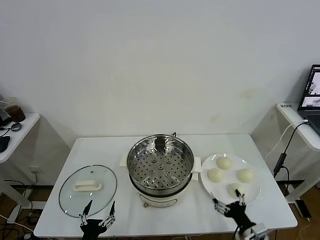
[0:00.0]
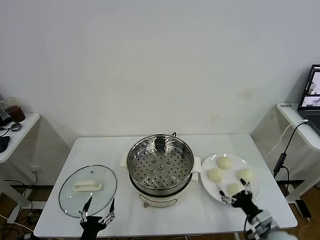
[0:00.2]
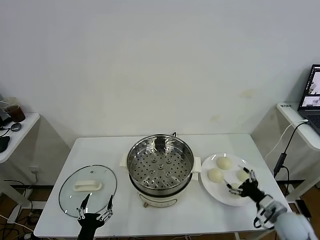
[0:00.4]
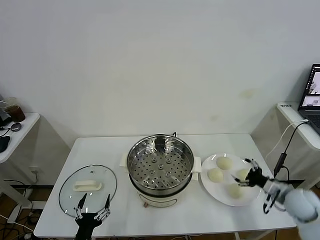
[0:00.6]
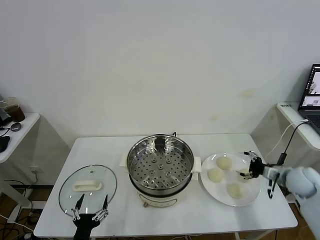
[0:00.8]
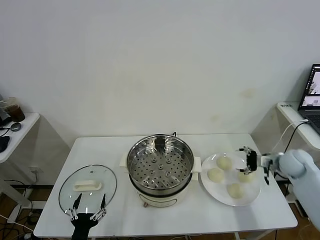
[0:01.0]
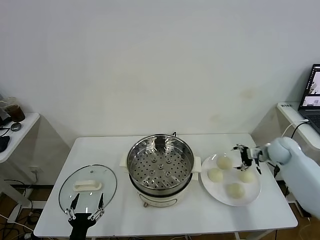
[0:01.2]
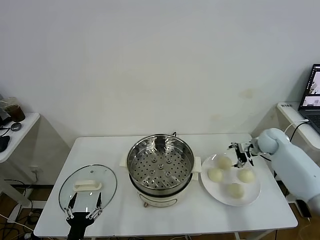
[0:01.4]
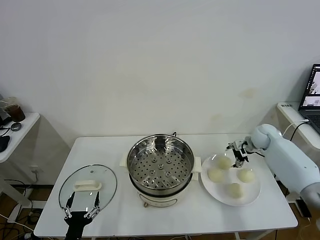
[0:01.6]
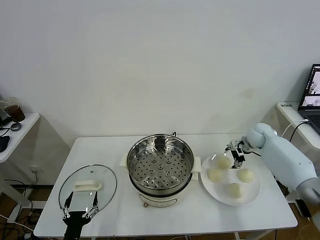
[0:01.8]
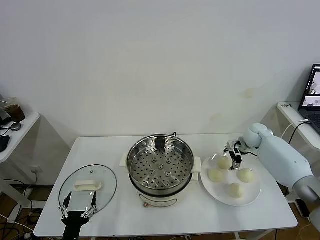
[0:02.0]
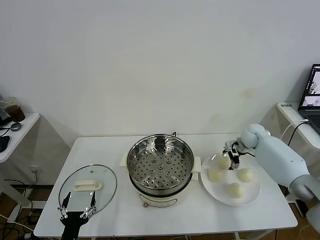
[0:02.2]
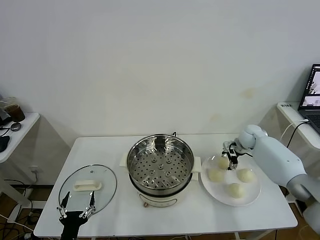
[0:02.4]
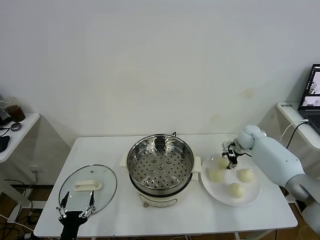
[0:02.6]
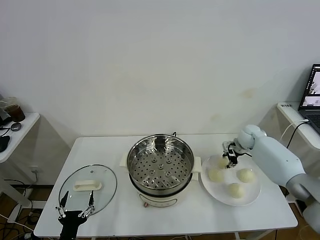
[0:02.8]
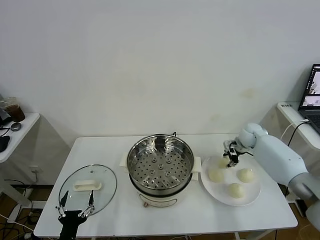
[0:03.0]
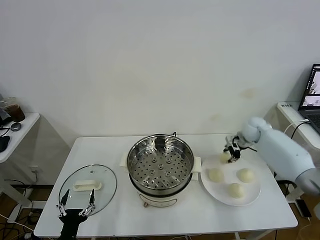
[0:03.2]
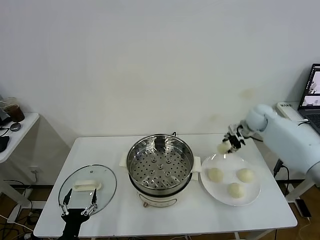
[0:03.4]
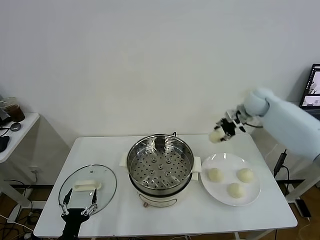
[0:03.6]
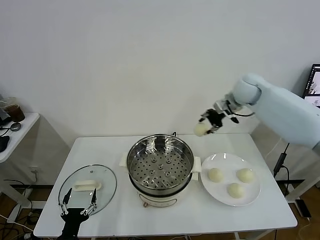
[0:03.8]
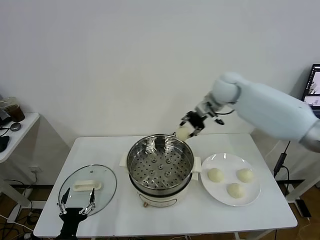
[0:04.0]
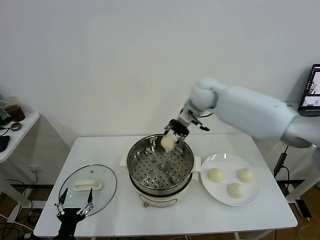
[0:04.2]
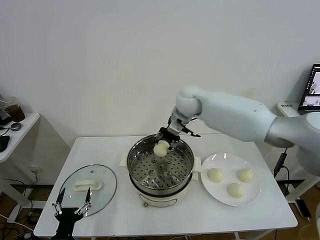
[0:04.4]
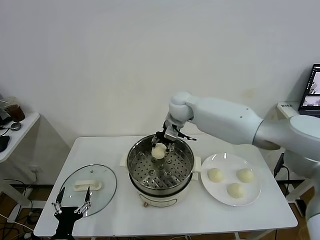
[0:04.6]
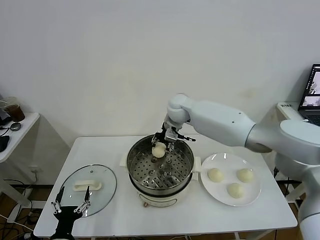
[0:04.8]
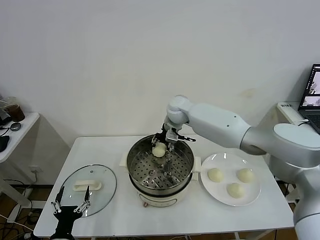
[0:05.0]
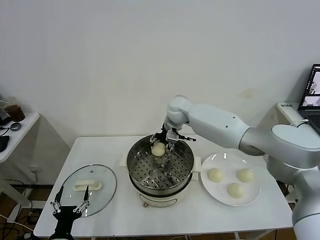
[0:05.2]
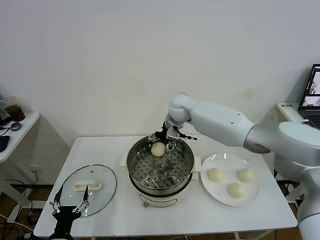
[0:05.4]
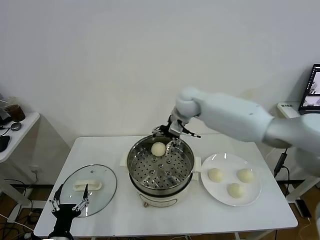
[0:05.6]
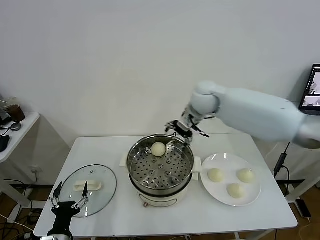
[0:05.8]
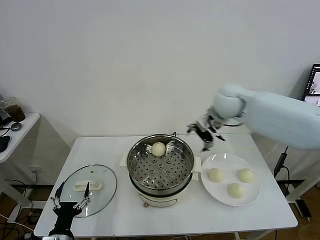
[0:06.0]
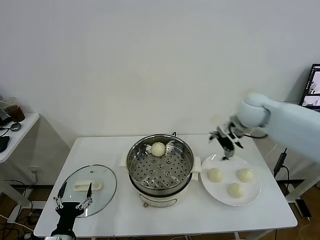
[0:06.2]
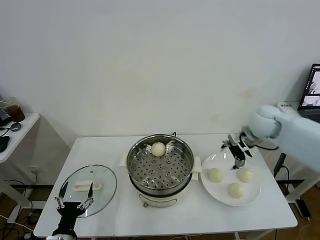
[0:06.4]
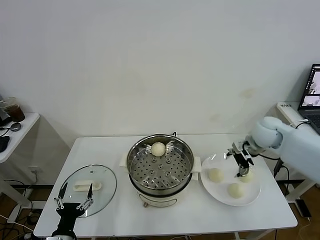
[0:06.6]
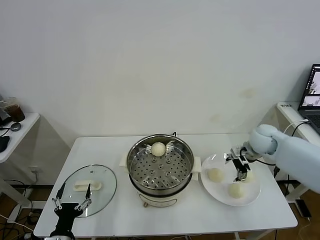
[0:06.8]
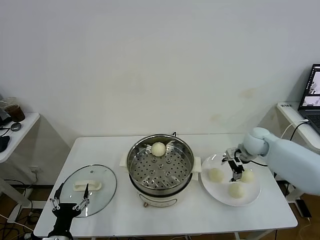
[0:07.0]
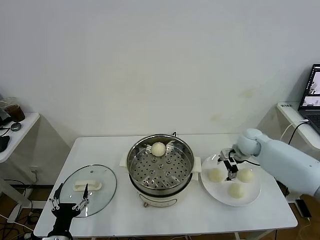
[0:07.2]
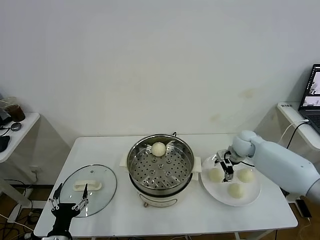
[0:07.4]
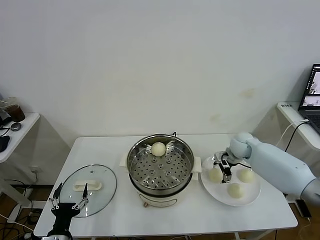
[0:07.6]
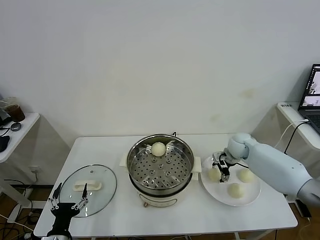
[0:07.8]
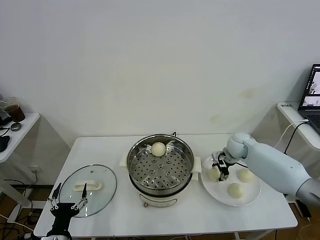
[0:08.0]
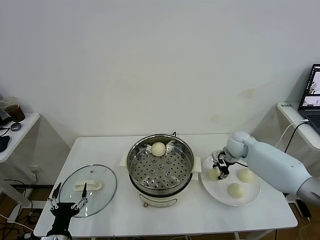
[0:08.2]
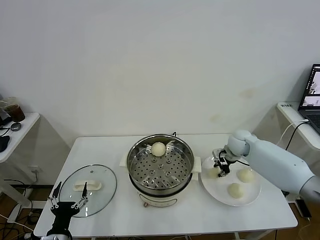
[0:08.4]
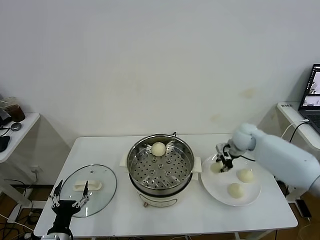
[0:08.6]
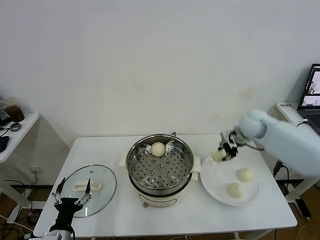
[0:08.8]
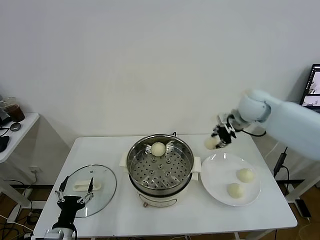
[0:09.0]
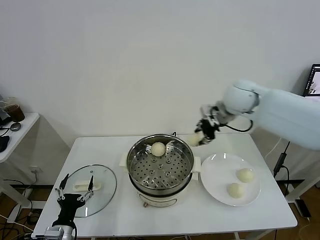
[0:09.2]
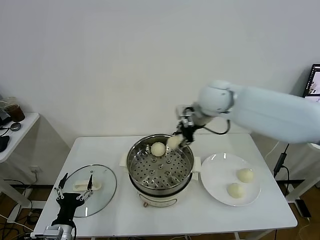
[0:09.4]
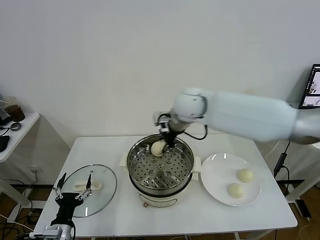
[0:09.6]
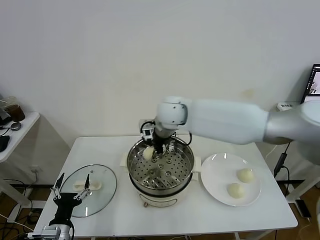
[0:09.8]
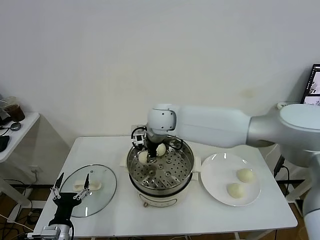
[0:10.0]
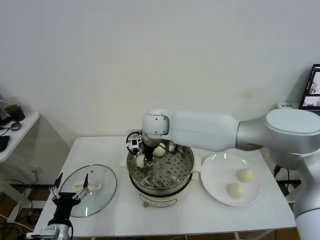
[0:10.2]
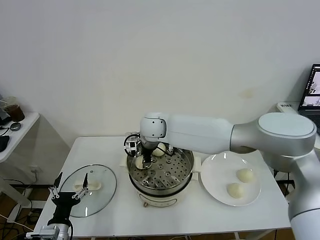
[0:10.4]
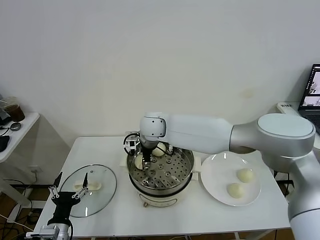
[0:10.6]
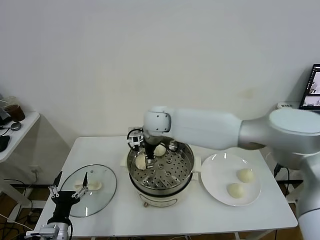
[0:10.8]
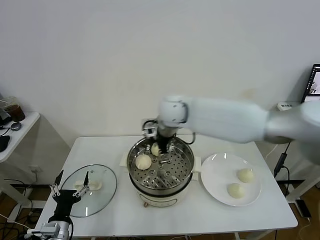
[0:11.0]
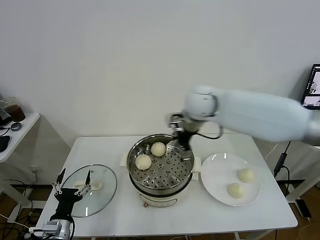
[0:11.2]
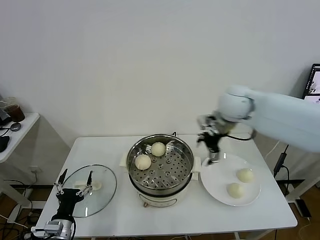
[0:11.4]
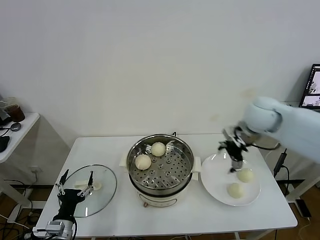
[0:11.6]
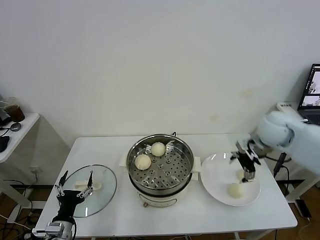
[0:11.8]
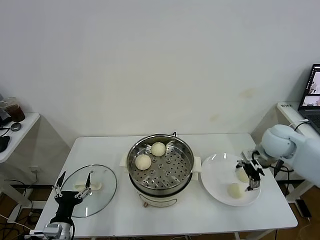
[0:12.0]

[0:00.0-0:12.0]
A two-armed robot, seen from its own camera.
Task of the whole recording: take steamed baozi put them in steamer.
Step, 0.0 to 2.8 s: Grasp the baozi in the plate with right gripper.
Step, 3.0 to 5.4 s: Place the baozi on the steamer with right gripper.
Step, 5.6 to 8.2 s: Grasp the baozi in the plate with right gripper.
Step, 8.4 to 10.6 s: Place the baozi on the steamer with right gripper.
1.6 to 3.0 s: The right gripper closes its fingers.
3.0 to 4.4 s: The right gripper moves to the left and upward, about 35 cm.
4.4 to 6.0 s: The right gripper goes about 15 cm to the right, and opens.
6.0 to 7.6 s: The right gripper travels downward and to the right by about 25 cm.
7.6 to 9.0 s: The right gripper shifts about 20 cm upward, and closes its fingers.
9.0 to 10.4 s: The right gripper is displaced to the left by some 30 cm.
10.4 to 12.0 s: The right gripper moves to the right, roughly 40 cm, and opens up.

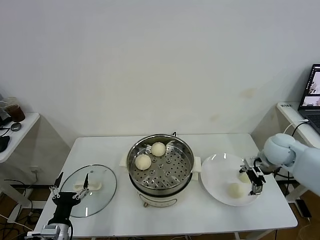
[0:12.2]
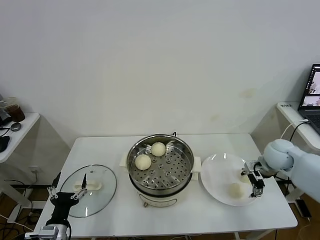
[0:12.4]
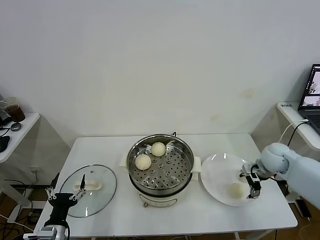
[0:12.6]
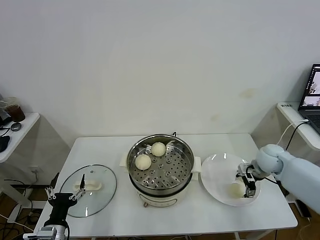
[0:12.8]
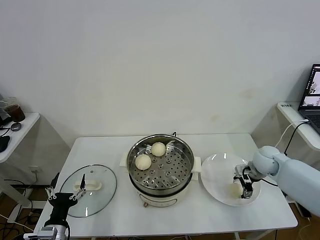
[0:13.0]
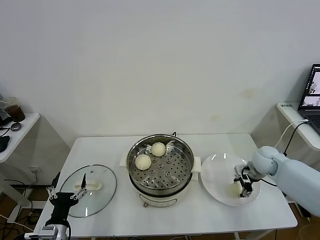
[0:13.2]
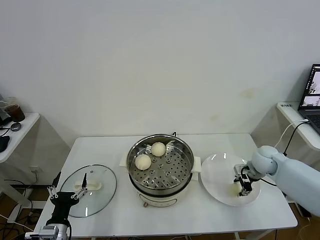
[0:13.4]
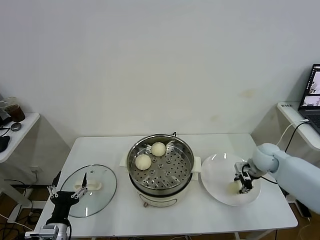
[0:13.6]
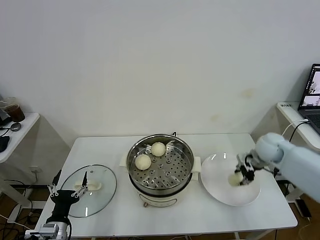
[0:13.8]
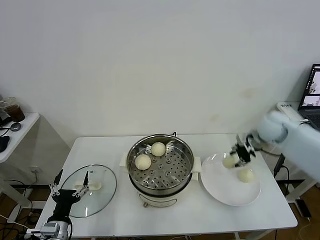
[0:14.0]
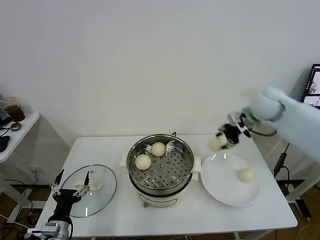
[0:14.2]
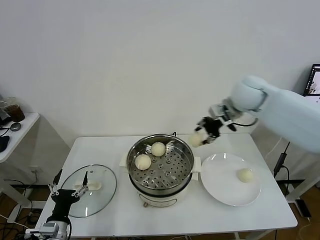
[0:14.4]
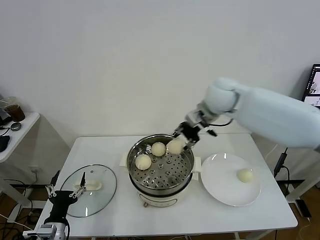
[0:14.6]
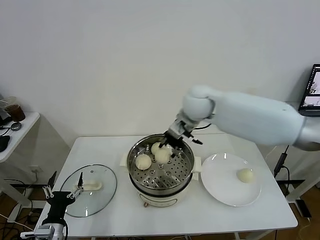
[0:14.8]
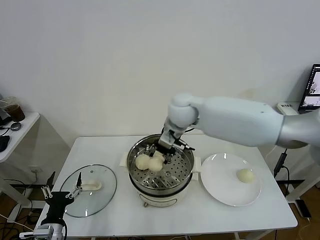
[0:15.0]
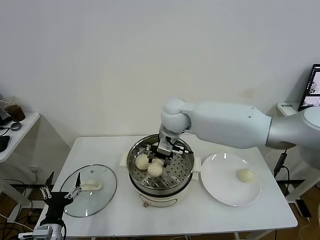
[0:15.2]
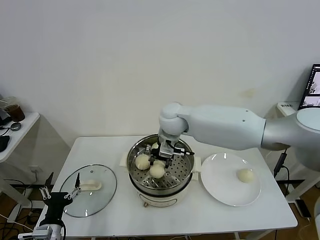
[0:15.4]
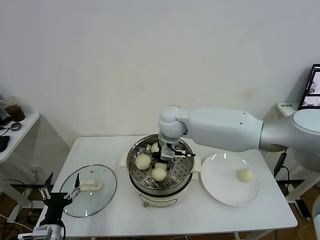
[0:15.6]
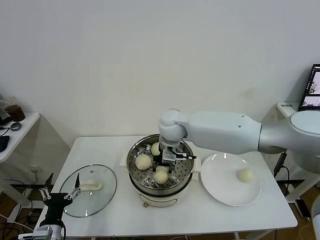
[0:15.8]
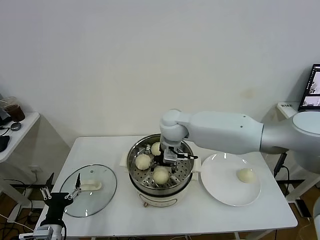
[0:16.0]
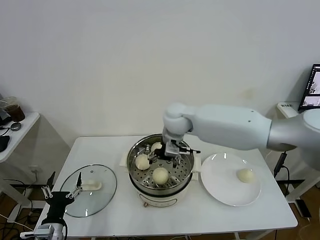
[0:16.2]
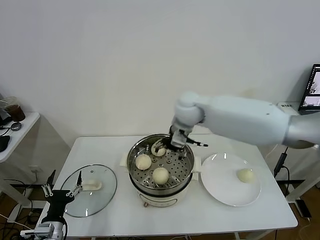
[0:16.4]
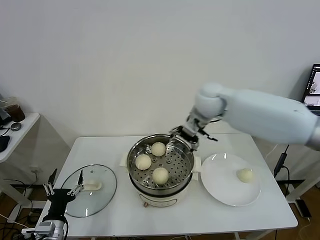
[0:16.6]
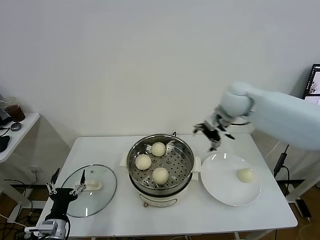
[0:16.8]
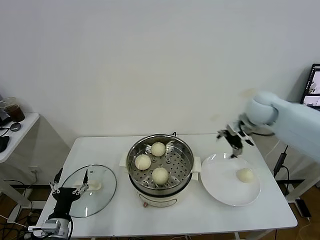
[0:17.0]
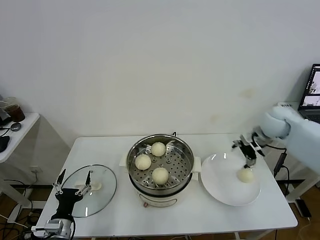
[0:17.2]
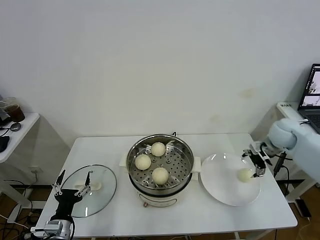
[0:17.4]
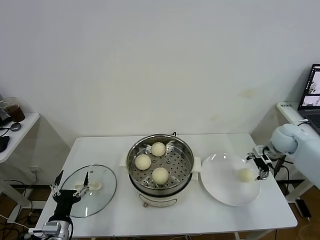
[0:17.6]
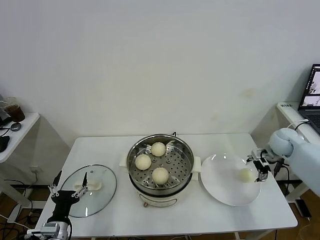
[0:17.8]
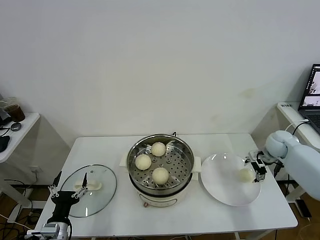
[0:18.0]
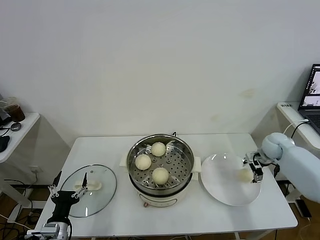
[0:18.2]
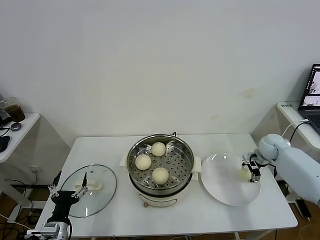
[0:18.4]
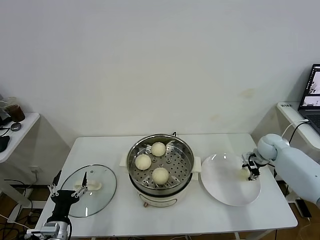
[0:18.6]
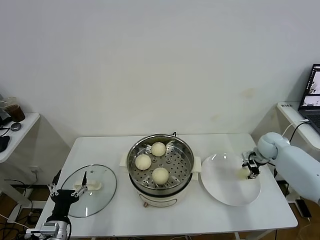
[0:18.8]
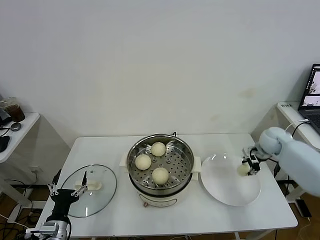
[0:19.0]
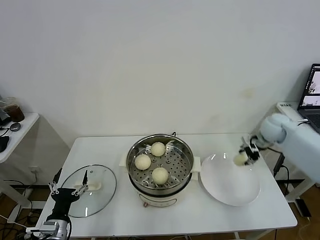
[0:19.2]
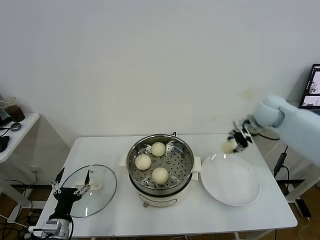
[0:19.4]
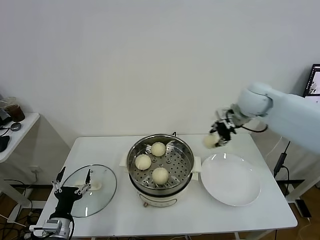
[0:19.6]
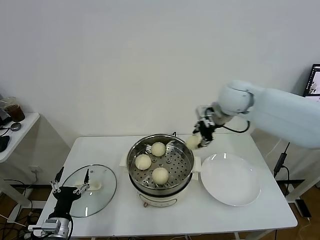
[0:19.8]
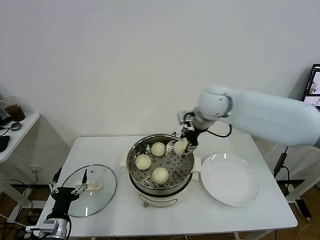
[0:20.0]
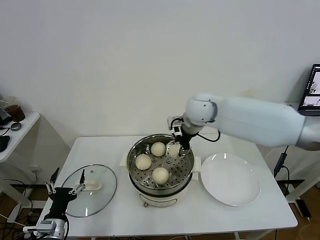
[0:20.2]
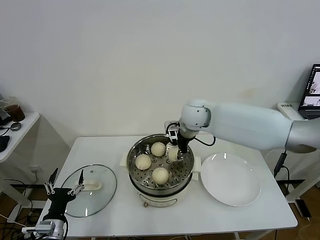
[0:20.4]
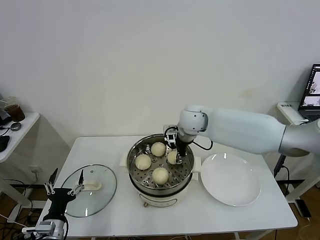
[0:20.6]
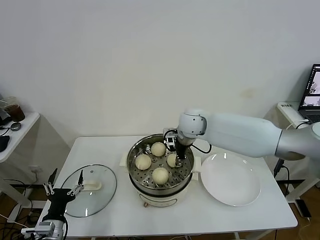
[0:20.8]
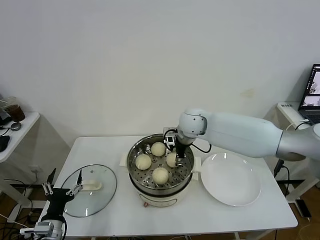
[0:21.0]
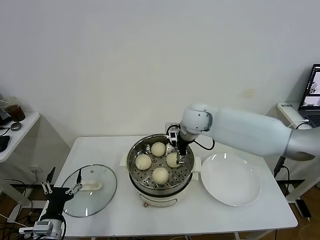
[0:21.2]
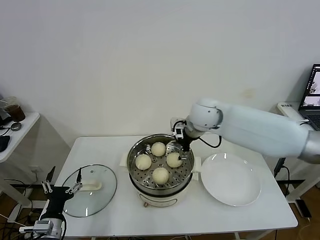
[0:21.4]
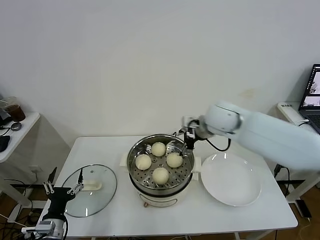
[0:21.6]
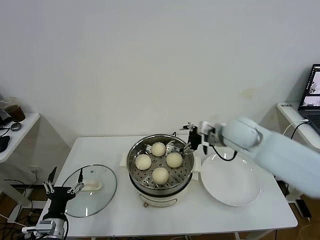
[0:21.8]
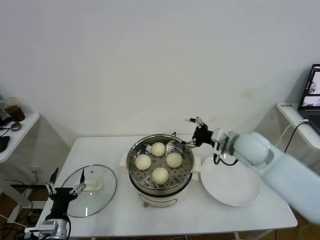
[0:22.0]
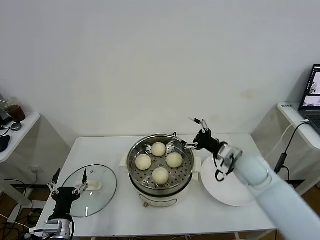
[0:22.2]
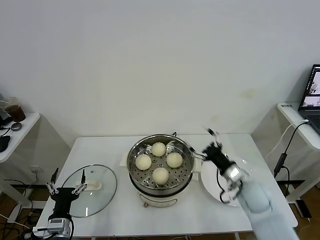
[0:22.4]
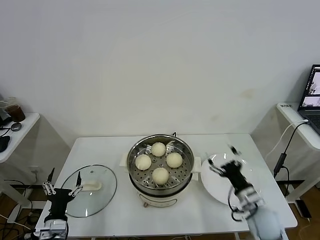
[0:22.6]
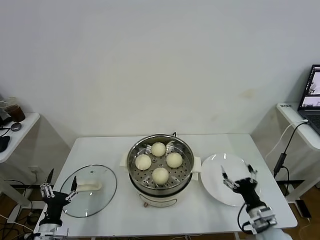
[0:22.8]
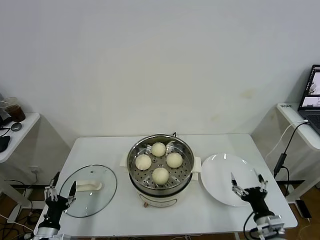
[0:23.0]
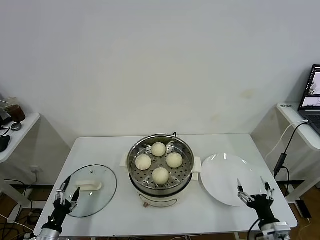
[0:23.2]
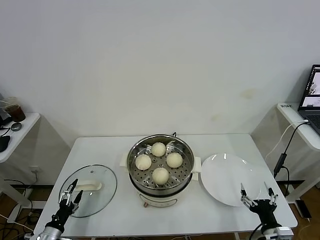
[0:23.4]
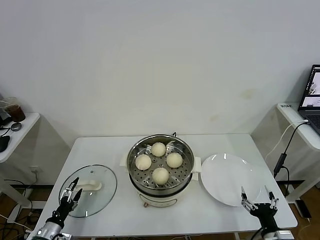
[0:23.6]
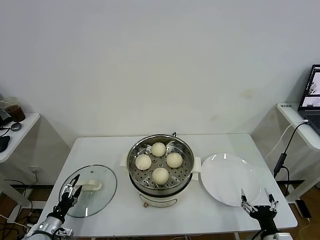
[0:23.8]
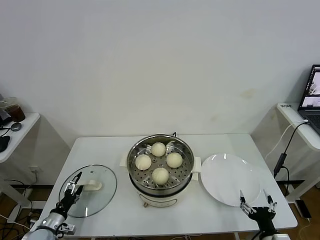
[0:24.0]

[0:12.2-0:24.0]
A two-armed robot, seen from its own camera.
Task of the whole recording: take steamed baozi put them in steamer.
Step, 13.8 to 16.0 s: Place the baozi on the steamer with right gripper.
Step, 16.4 to 18.6 s: Grasp the baozi in the plate with right gripper.
Step, 18.8 to 21.0 s: Place the baozi on the steamer with right gripper.
12.2 to 13.6 s: The right gripper heads downward, covering roughly 5 cm, and closes up.
13.6 to 15.2 s: The right gripper travels to the left and upward by some 35 cm.
15.2 to 16.6 s: The right gripper heads to the right, covering about 10 cm, and opens up.
16.6 to 18.2 s: The right gripper shifts approximately 35 cm to the right and downward.
18.2 to 19.6 s: The right gripper is displaced upward and to the left by roughly 25 cm, and closes its fingers.
19.6 to 21.0 s: The right gripper travels to the left and downward by roughly 20 cm, and opens its fingers.
21.0 to 22.6 s: The right gripper travels backward, to the right and downward by approximately 35 cm.
22.6 to 24.0 s: The left gripper goes roughly 15 cm to the left, downward and forward. The right gripper heads backward, covering roughly 15 cm.
